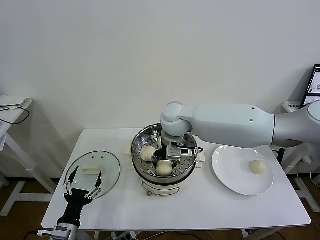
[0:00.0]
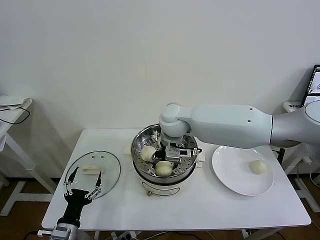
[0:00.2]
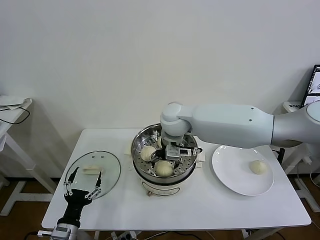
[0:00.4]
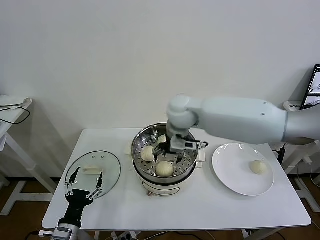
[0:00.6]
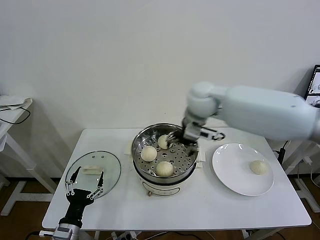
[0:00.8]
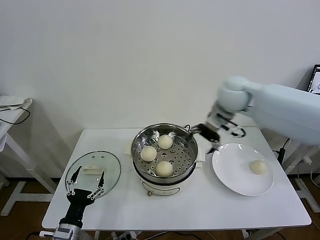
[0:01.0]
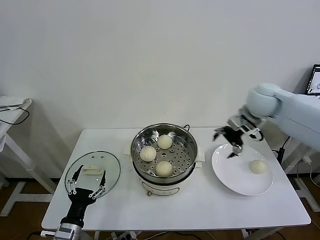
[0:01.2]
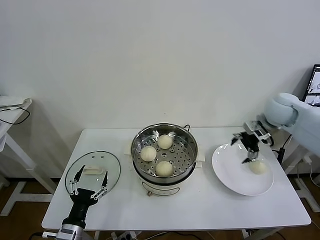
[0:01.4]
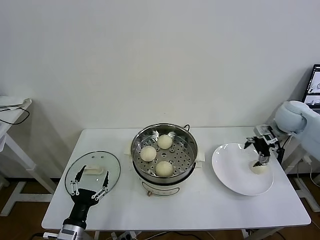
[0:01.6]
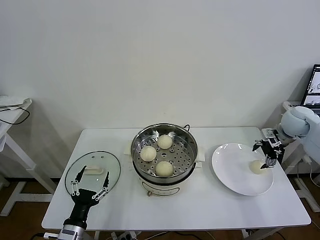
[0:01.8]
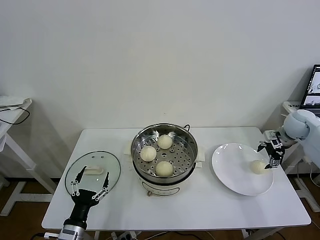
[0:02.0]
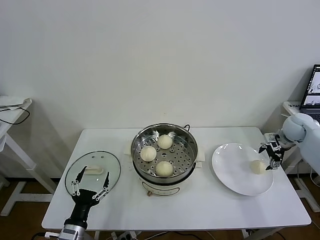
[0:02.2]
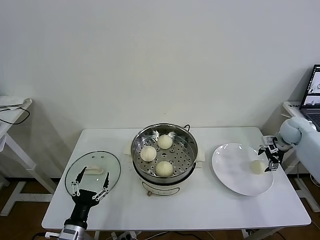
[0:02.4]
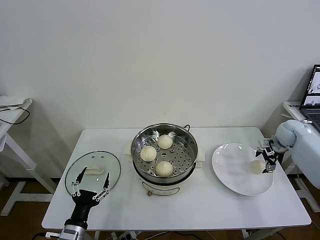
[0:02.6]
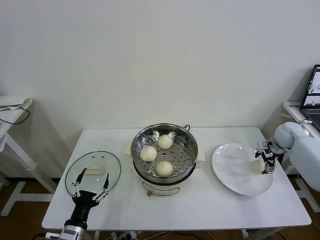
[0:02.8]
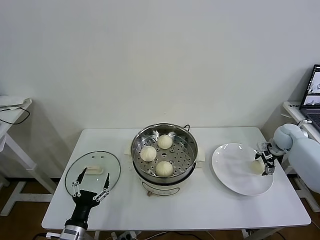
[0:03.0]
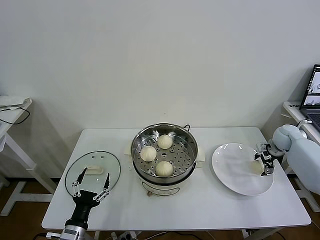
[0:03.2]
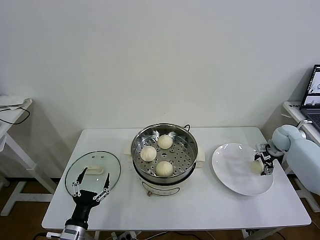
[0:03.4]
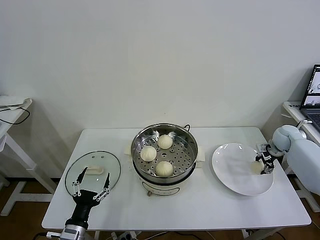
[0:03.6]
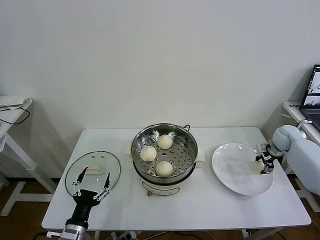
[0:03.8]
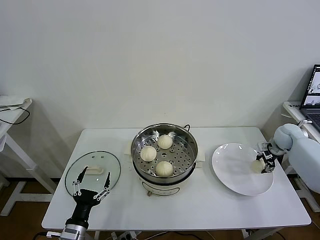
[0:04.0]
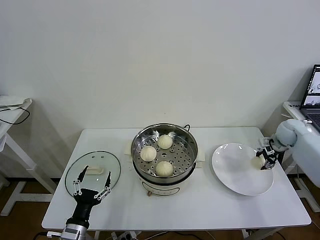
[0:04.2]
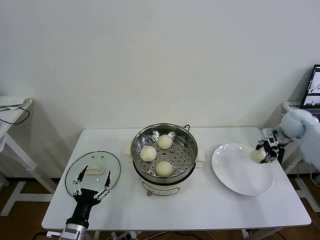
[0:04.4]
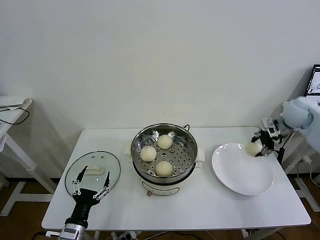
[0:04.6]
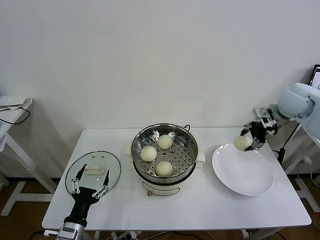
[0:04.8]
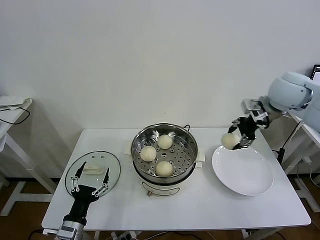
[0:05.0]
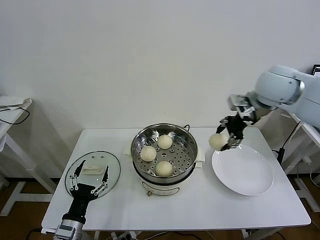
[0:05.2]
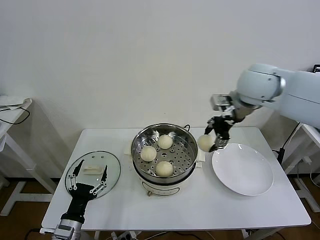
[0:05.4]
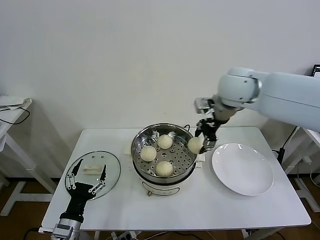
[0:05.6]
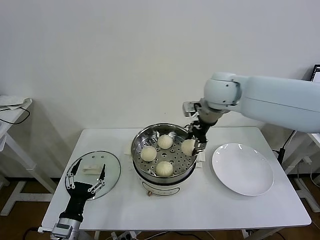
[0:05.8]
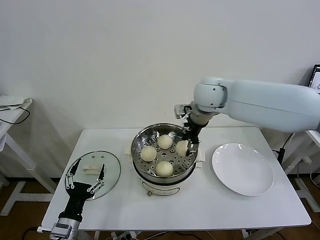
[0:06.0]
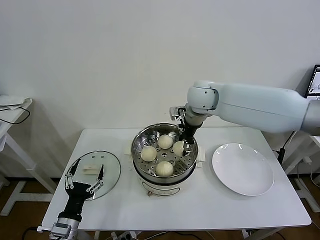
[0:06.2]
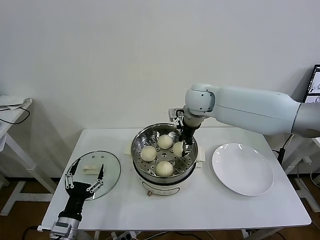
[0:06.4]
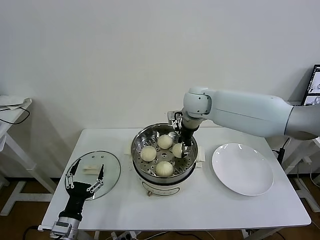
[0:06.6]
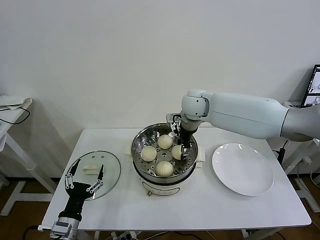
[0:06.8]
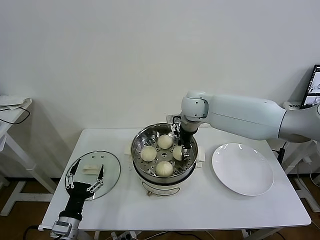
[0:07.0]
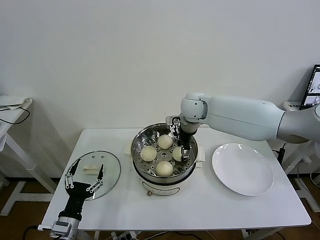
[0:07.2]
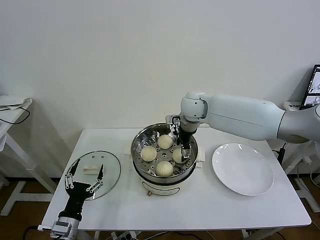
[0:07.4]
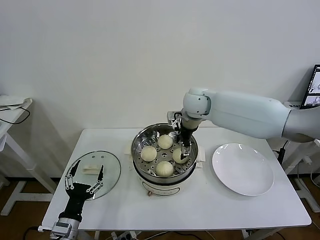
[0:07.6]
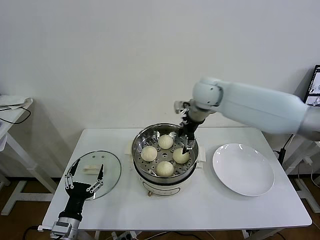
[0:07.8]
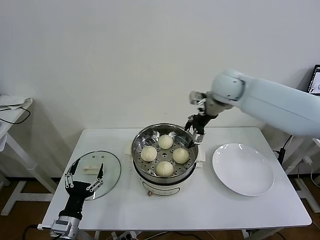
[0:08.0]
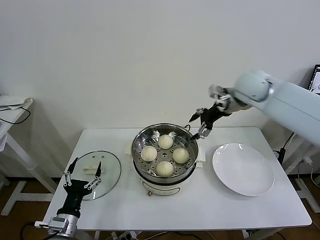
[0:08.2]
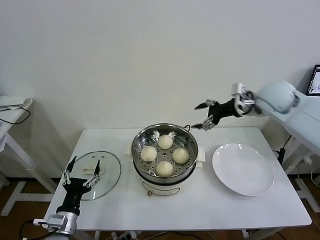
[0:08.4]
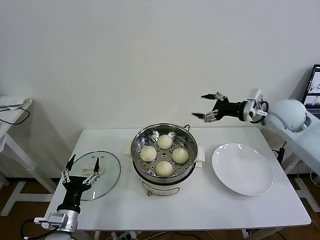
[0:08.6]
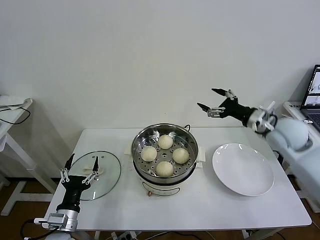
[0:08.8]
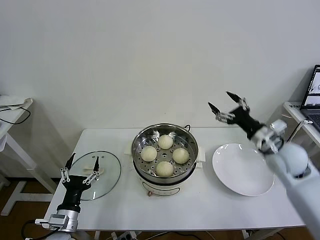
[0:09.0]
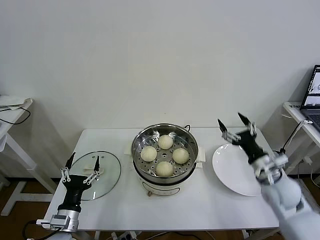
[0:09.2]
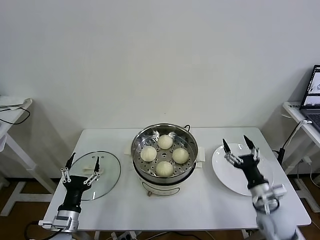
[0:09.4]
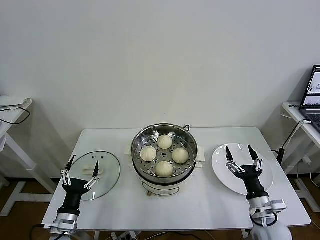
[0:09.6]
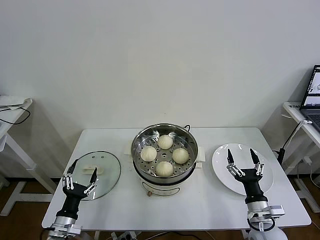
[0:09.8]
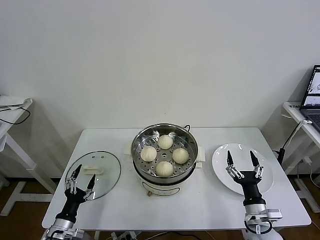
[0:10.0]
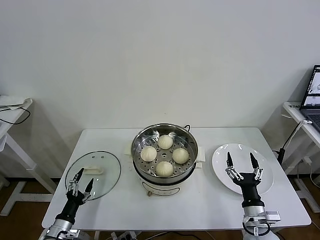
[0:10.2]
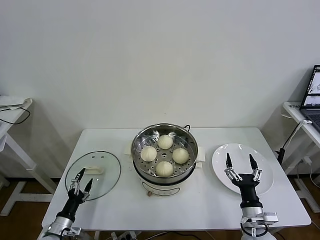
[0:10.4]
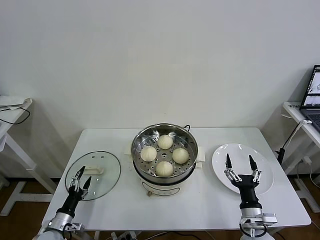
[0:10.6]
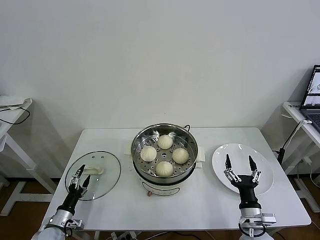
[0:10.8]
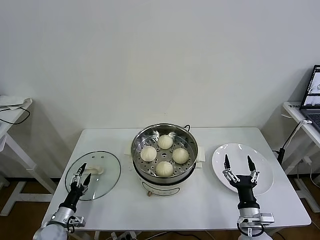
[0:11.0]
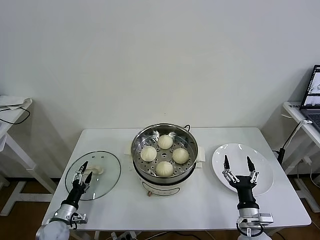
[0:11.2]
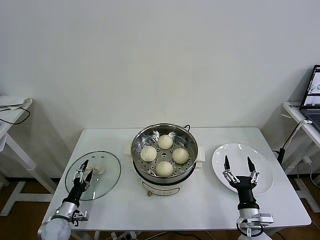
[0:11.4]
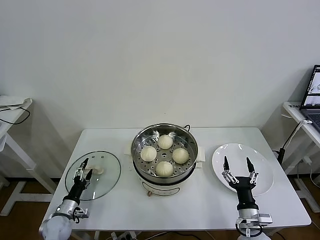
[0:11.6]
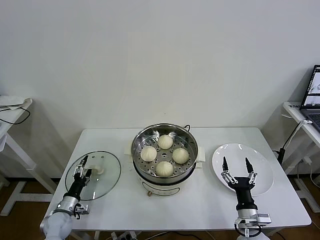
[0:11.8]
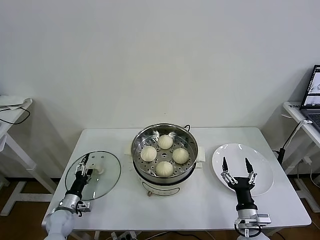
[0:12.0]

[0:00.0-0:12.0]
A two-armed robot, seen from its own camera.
Task of the whole recording: take steamed baozi put them in steamer then cover it.
Step, 0:00.6 to 0:03.8: Grasp the baozi in the plate with right gripper.
Step, 0:04.0 to 0:07.4: Place the baozi on the steamer with right gripper.
0:00.0 to 0:01.6: The right gripper heads to the right, covering roughly 40 cm, and opens.
0:01.6 to 0:03.0: The right gripper travels downward and to the right by approximately 15 cm.
0:03.0 to 0:04.4: The right gripper travels upward by some 10 cm, and closes.
0:04.4 to 0:06.0: The right gripper shifts about 35 cm to the left.
0:06.0 to 0:07.6: The right gripper moves downward, roughly 5 cm, and opens its fingers.
0:07.6 to 0:09.0: The right gripper shifts roughly 30 cm to the right and backward.
0:09.0 to 0:10.4: The left gripper shifts some 15 cm downward and to the left; the right gripper travels downward and backward by some 25 cm.
0:10.4 to 0:12.0: The left gripper is displaced forward by roughly 10 cm.

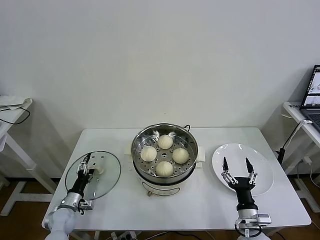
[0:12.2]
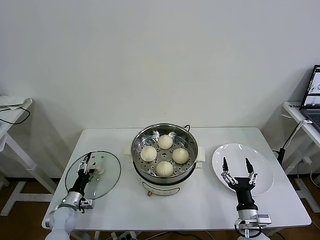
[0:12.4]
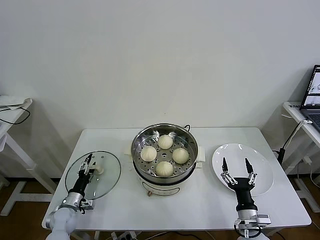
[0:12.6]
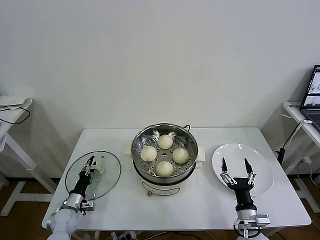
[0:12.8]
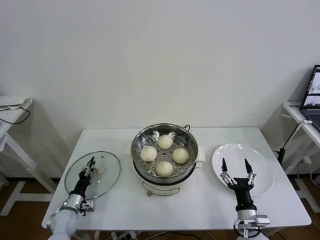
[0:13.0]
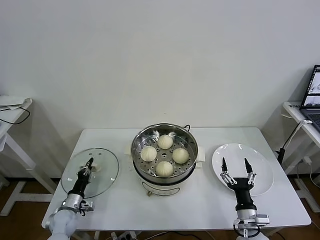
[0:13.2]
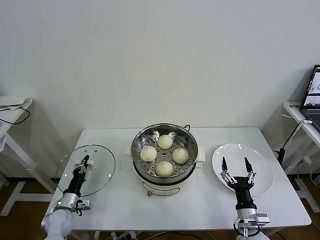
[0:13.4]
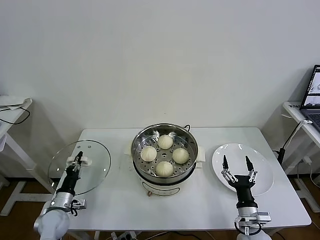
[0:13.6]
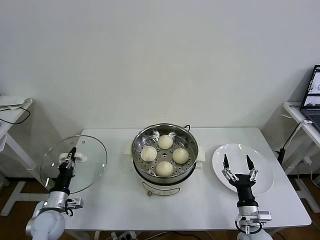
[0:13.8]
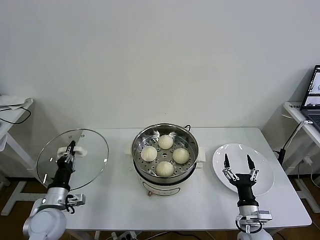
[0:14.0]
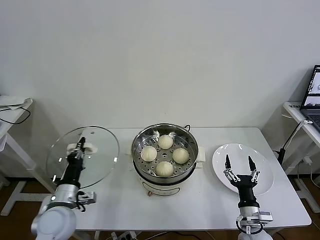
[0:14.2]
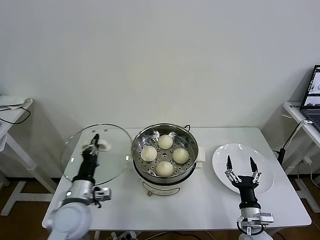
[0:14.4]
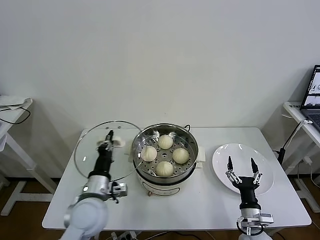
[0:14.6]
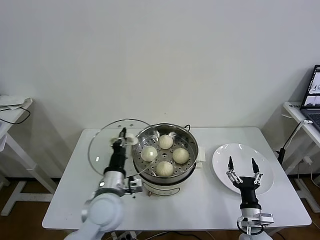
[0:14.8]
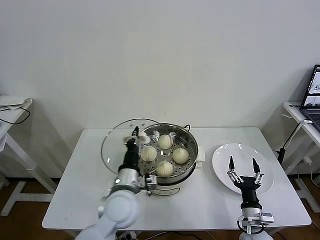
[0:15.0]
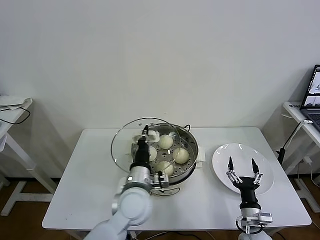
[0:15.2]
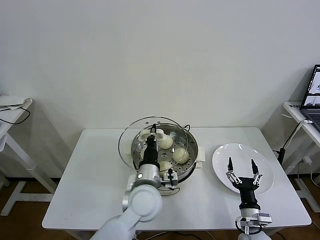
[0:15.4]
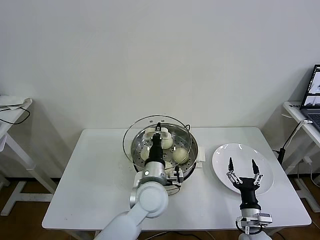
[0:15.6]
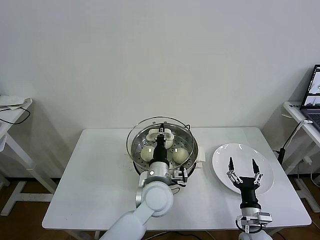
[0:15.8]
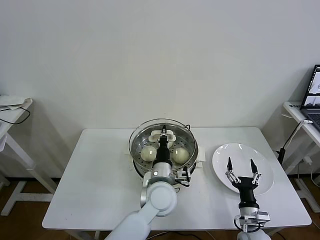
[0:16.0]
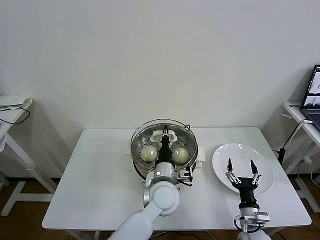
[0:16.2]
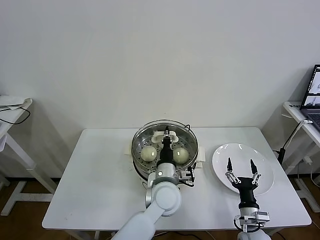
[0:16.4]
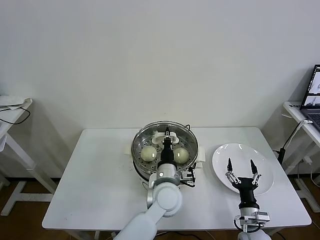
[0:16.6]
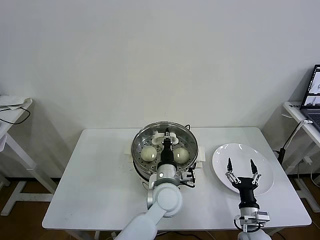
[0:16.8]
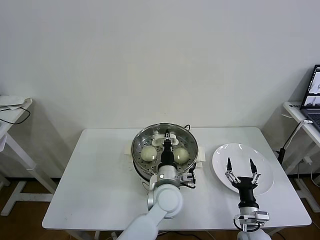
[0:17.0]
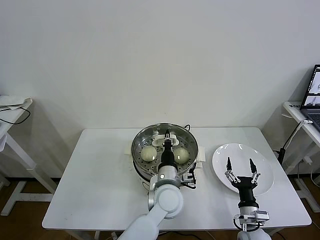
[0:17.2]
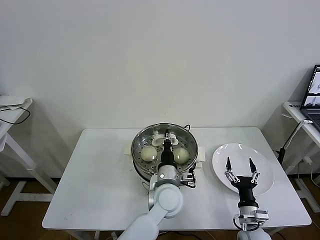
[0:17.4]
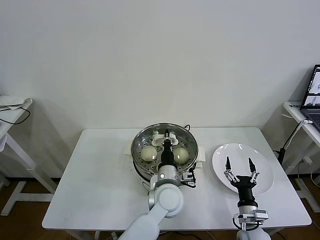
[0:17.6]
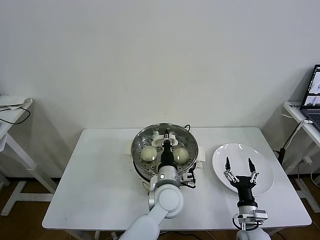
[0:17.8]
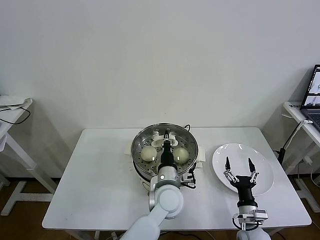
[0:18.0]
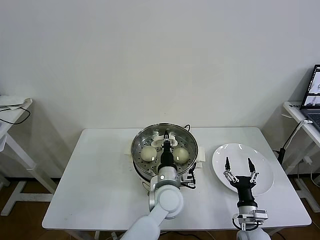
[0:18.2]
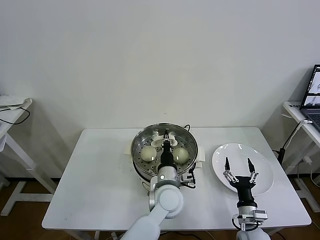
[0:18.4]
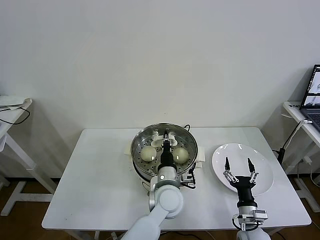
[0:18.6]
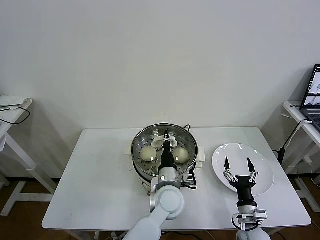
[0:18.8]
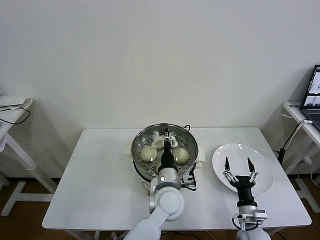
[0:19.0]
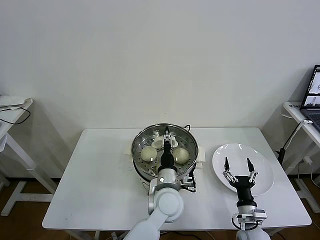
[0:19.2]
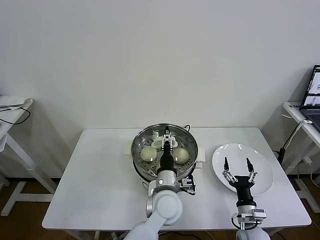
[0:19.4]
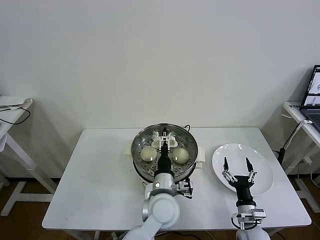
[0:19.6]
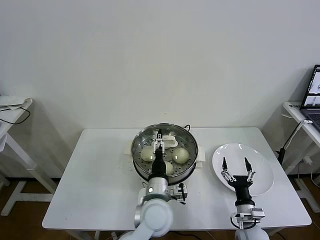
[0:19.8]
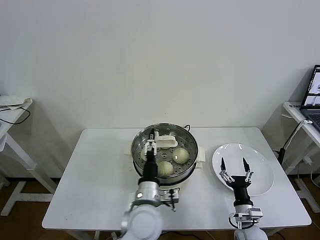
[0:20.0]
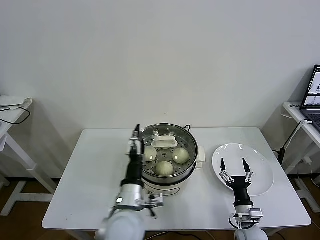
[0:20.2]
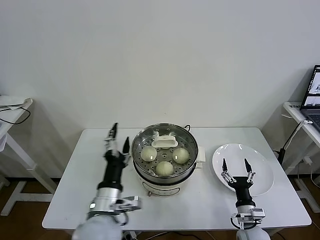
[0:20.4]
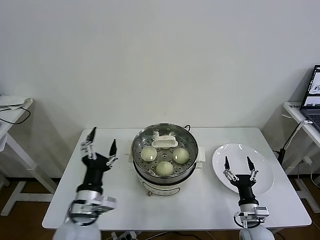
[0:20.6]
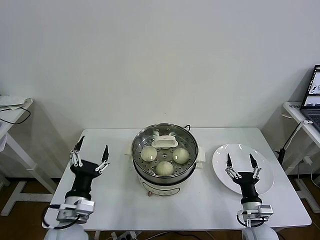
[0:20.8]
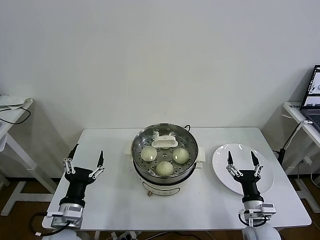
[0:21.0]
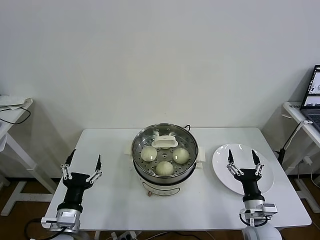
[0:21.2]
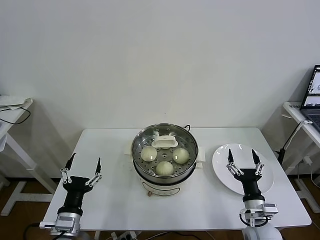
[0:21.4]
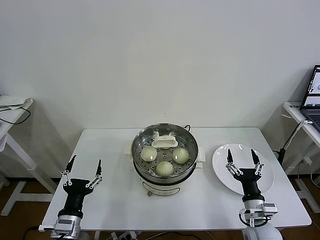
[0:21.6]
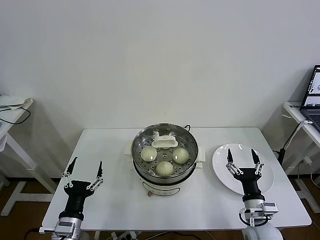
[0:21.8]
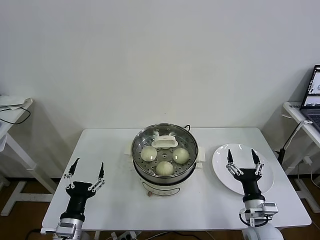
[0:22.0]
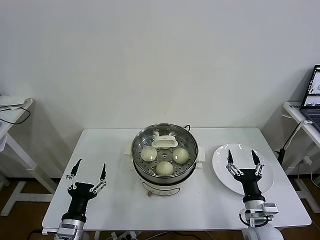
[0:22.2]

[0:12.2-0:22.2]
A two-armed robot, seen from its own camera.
Task of the whole recording: take steamed baozi put them in steamer then cover it.
Step, 0:13.6 to 0:19.8: Place the pot lid on the steamer with left gripper.
0:12.2 to 0:13.6: The left gripper closes its fingers.
0:13.6 to 0:15.0: The left gripper shifts roughly 30 cm to the right and upward.
0:15.0 to 0:16.4: The left gripper heads to the right, covering roughly 15 cm.
0:16.4 to 0:18.0: The grippers stay close to where they were, moving slightly.
0:18.0 to 0:19.4: The left gripper opens its fingers.
0:19.4 to 0:20.8: The left gripper is displaced to the left and backward by some 25 cm.
0:20.8 to 0:22.2: The left gripper moves downward, roughly 5 cm.
